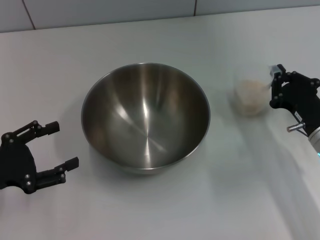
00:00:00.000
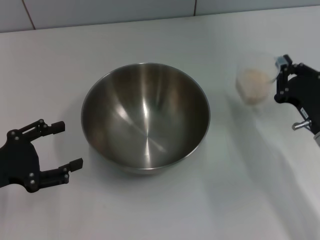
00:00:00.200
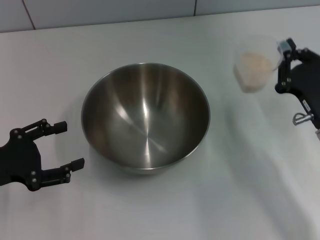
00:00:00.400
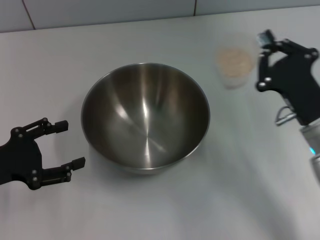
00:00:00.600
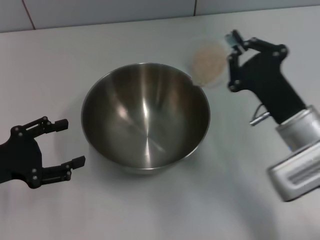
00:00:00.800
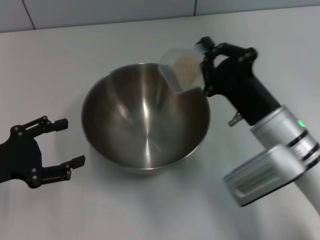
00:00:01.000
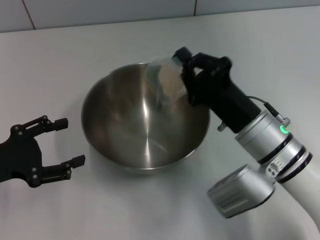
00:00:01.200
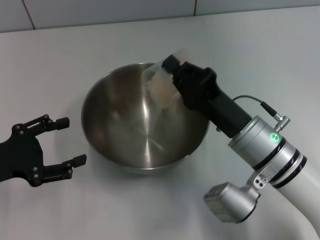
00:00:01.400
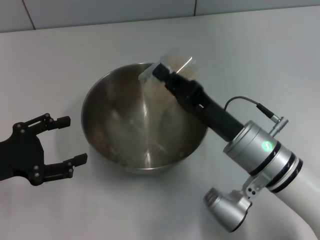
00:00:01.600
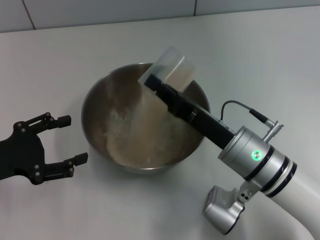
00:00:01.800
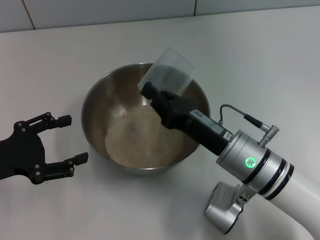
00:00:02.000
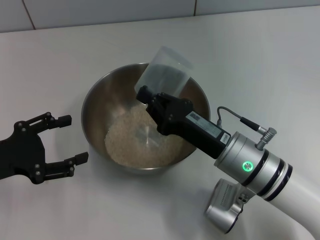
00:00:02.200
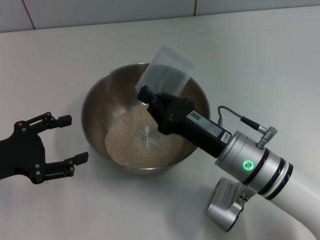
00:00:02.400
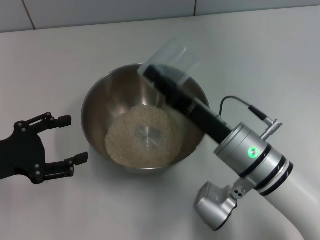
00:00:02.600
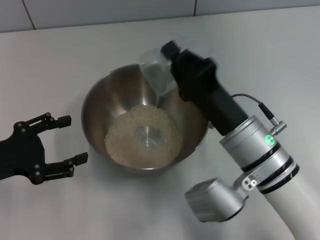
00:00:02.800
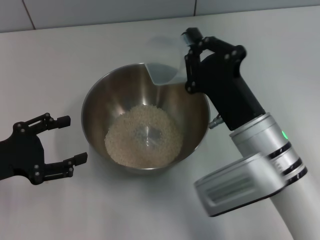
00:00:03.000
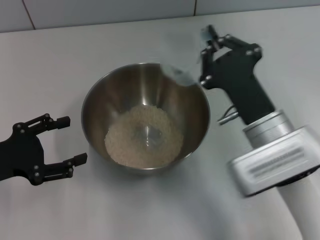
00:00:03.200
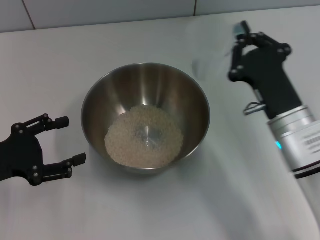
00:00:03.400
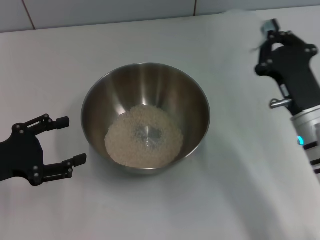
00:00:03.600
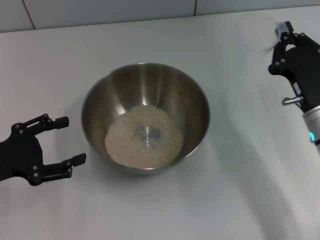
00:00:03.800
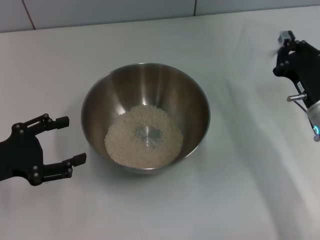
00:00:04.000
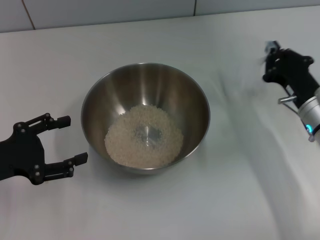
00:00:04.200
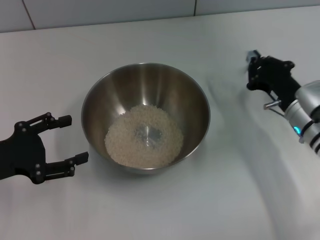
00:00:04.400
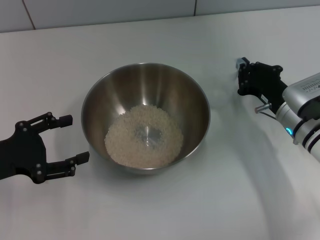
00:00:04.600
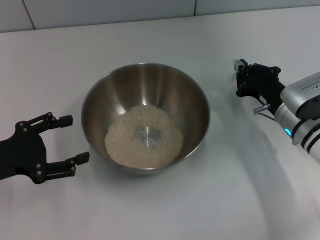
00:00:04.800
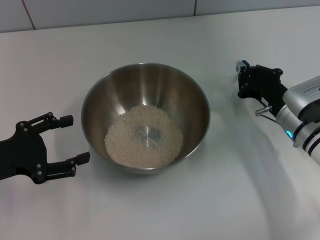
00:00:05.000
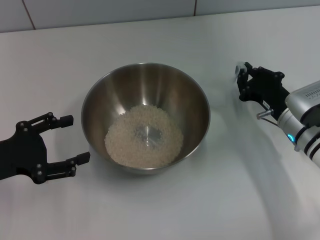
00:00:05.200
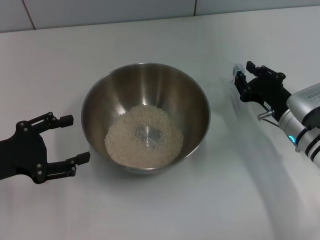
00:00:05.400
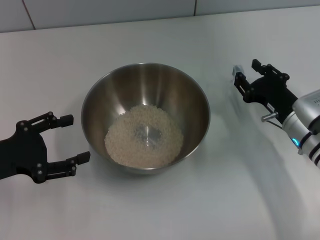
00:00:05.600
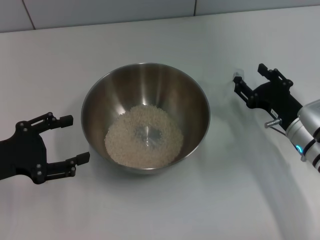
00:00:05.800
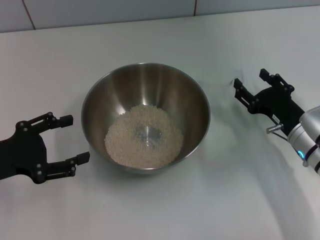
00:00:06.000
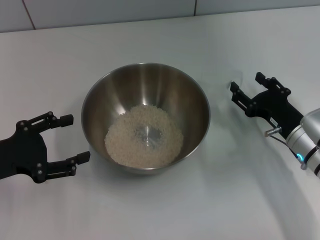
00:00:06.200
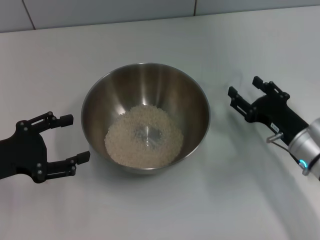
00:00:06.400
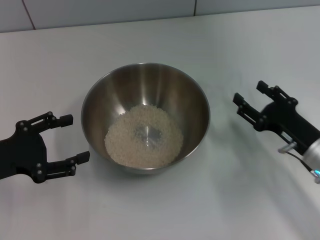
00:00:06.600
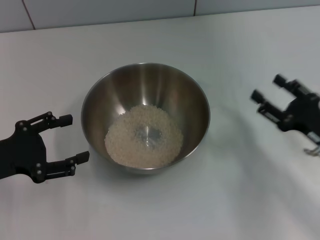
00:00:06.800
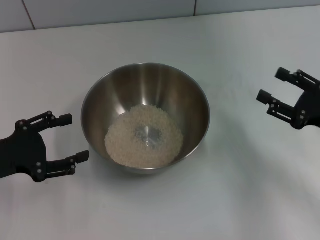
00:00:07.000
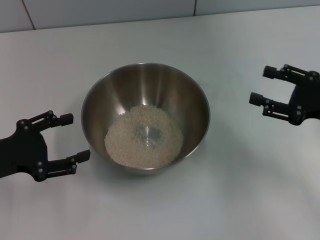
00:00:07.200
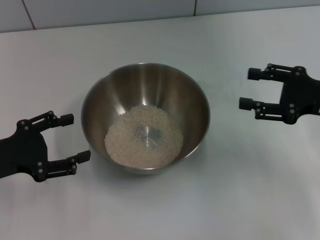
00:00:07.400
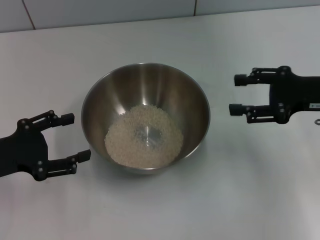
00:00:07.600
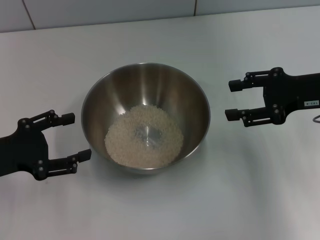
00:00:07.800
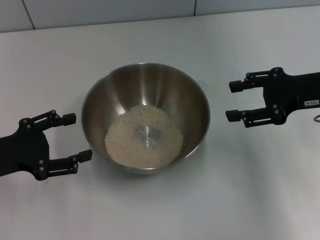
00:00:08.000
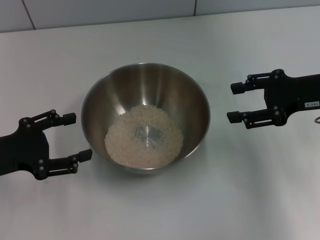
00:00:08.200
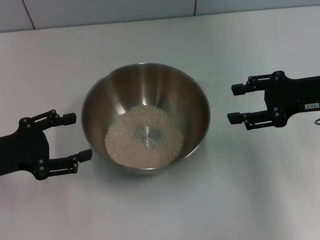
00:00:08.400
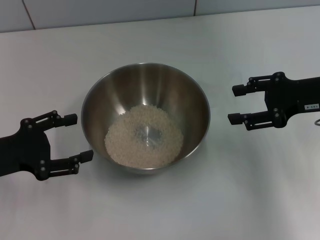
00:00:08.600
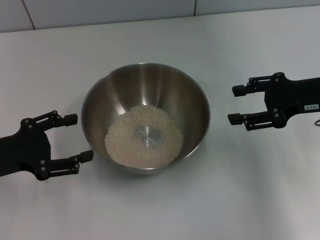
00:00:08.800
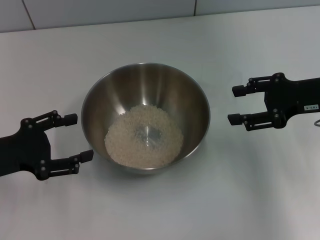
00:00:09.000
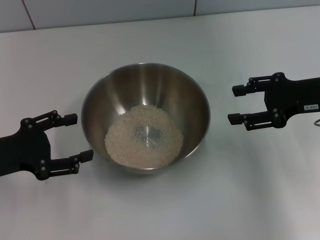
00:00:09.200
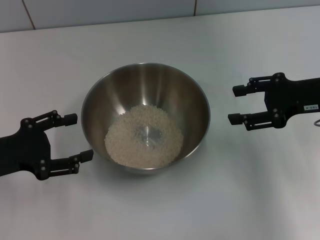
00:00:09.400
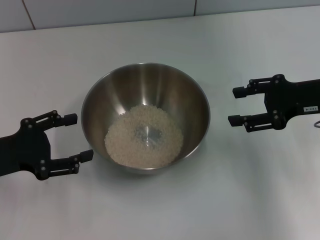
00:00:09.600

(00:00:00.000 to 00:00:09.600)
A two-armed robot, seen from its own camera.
Task of the whole recording: Place the bowl in the middle of the table with one hand and pour the rice from the grain cup into it with the other hand.
Step, 00:00:00.600 - 00:00:03.200: Pour the rice from the cup into the bowl with the right gripper.
Step, 00:00:03.400 - 00:00:06.400: Place the cup on the table with the right gripper.
00:00:00.000 - 00:00:01.600: The right gripper moves to the left, some 15 cm.
00:00:03.200 - 00:00:04.800: The right gripper is displaced to the right, forward and downward by roughly 15 cm.
00:00:04.800 - 00:00:06.400: The right gripper travels backward by about 5 cm, and opens up.
00:00:06.400 - 00:00:08.000: The right gripper travels upward by approximately 15 cm.
00:00:08.000 - 00:00:09.600: Neither gripper changes place.
